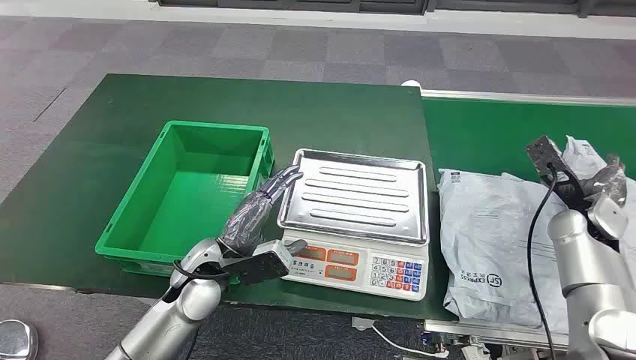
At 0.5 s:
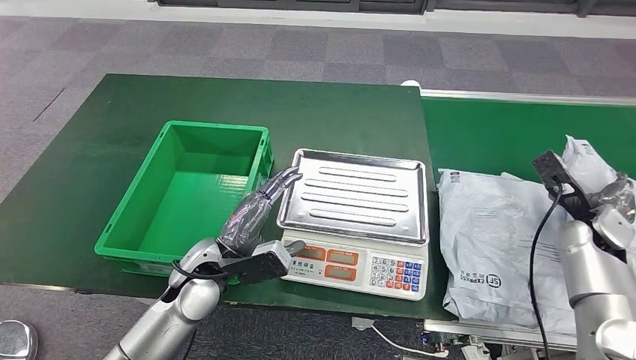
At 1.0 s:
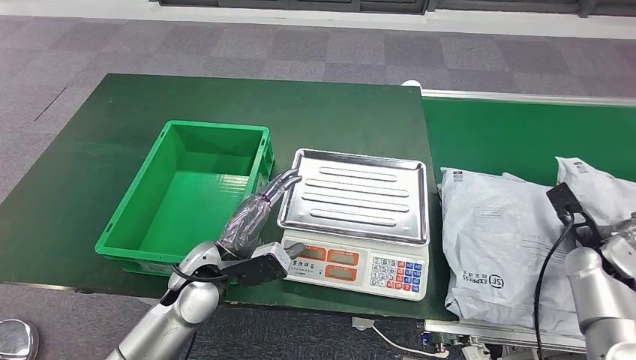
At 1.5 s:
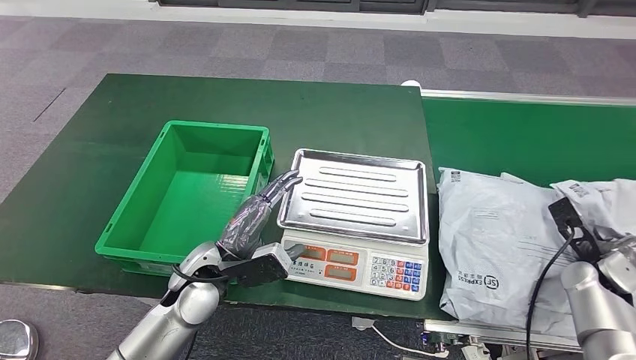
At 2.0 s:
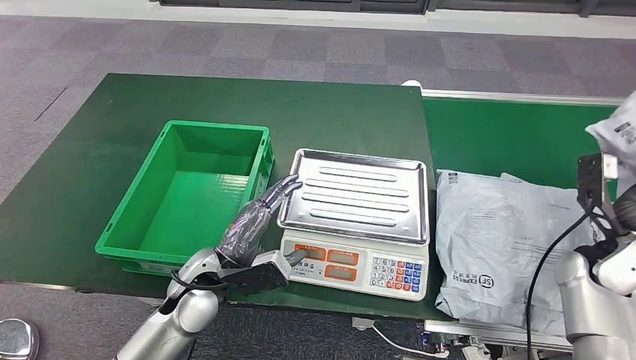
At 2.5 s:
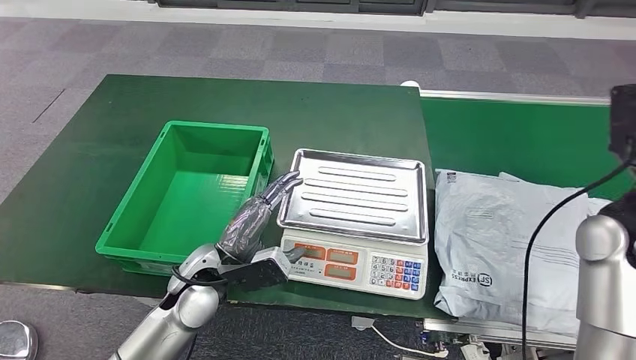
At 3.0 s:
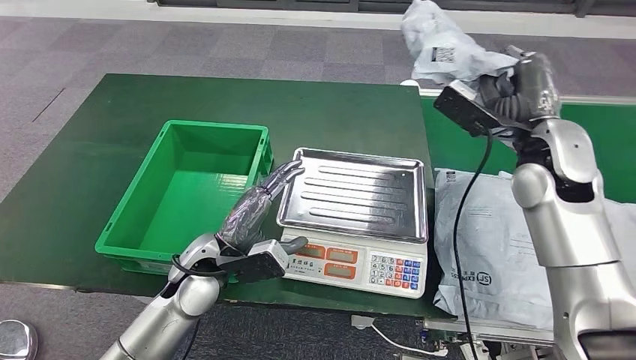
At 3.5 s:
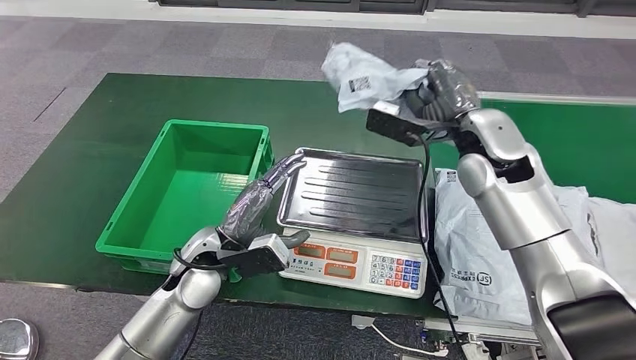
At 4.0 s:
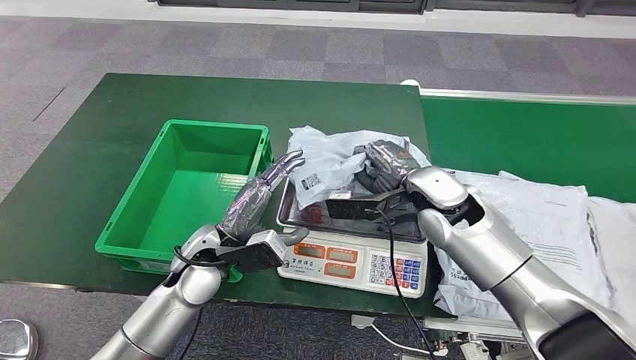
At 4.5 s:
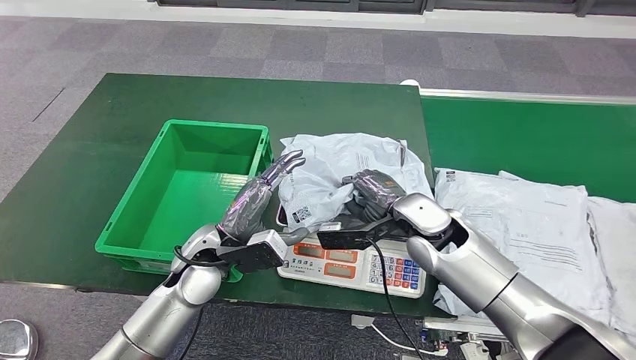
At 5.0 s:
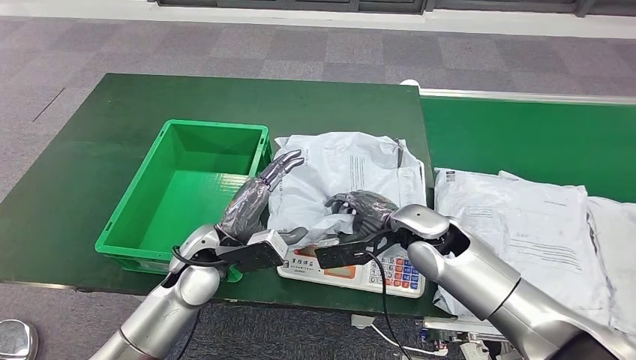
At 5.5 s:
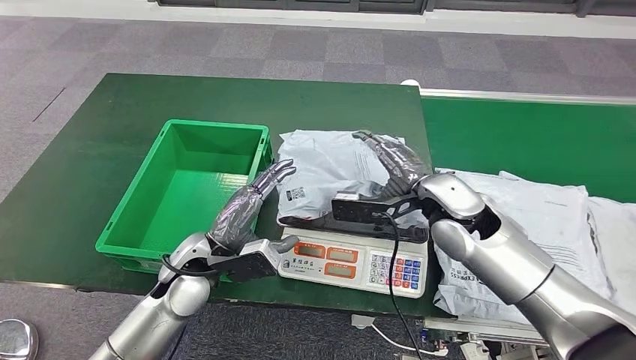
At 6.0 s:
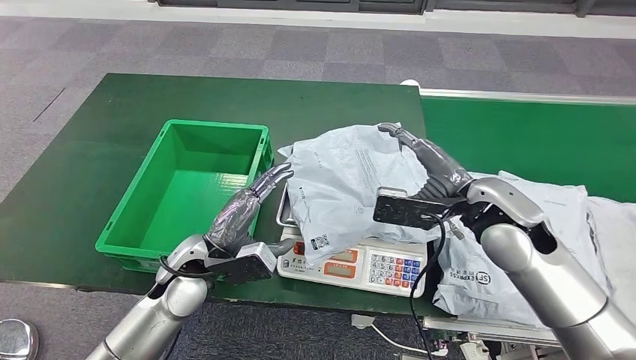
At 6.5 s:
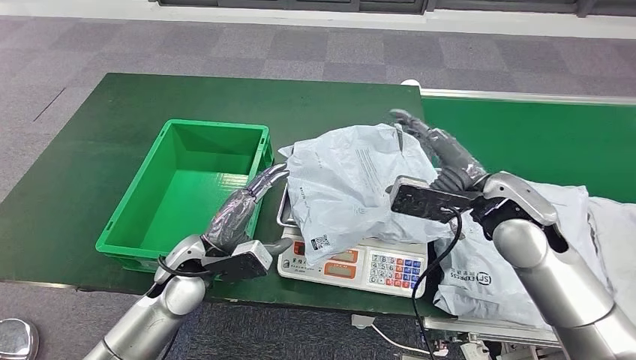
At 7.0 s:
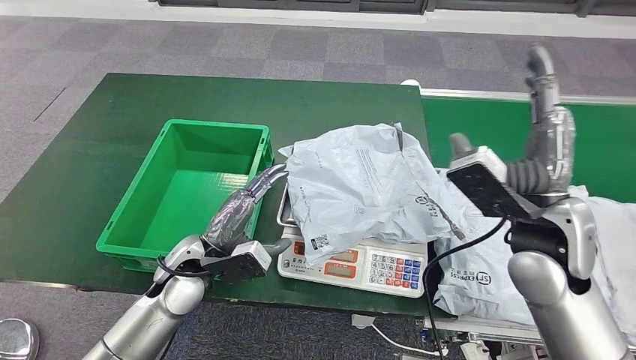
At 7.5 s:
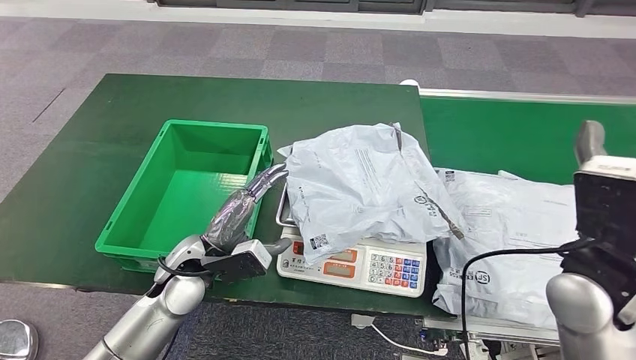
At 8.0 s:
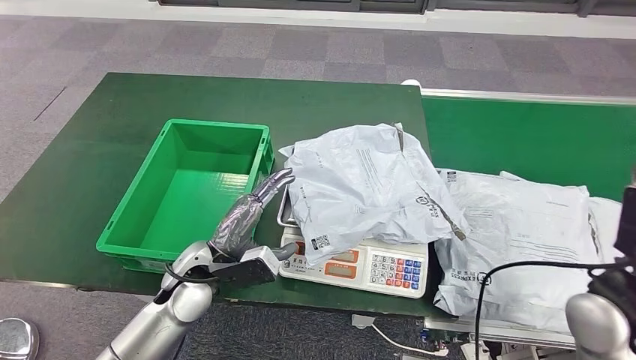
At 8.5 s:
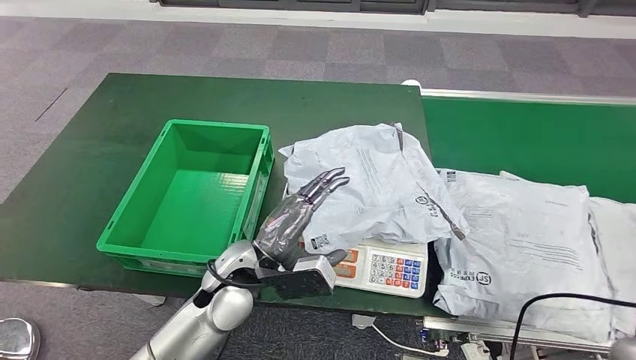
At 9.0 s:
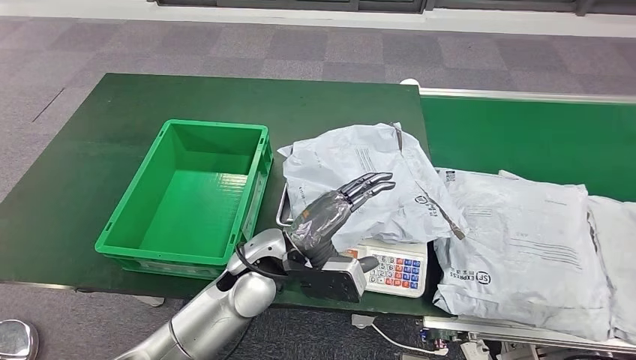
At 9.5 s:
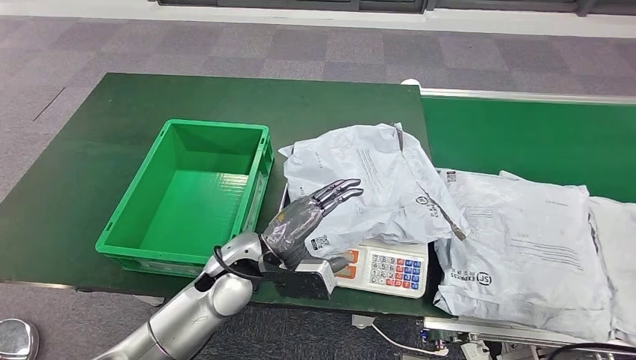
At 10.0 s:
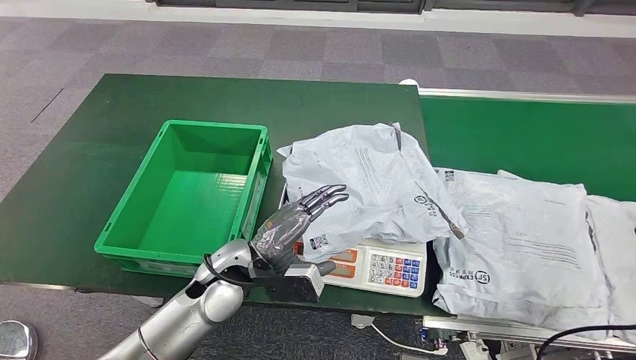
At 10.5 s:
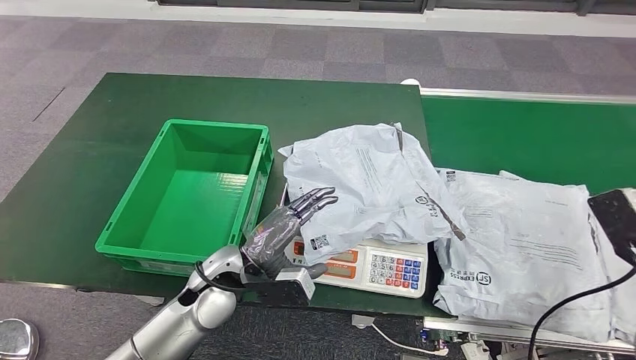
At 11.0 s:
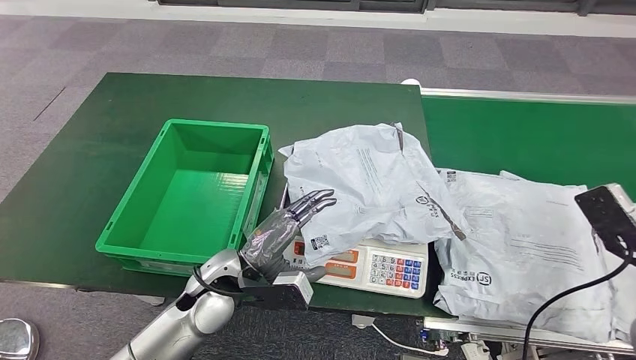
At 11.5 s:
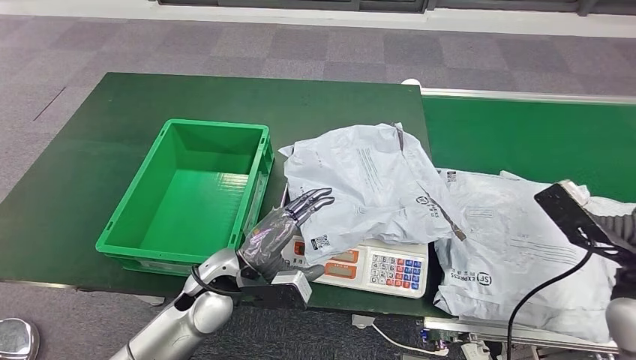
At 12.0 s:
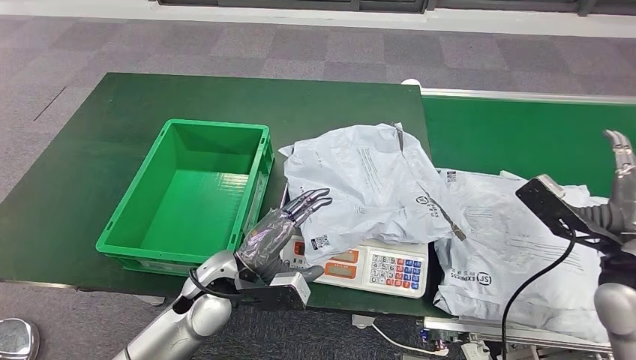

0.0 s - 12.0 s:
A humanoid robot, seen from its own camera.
Step, 0.0 s - 2.5 s: Take the parcel off the conveyor belt.
Step, 3.0 s - 6.5 s: Place the parcel onto the inbound machine.
4.0 s - 6.0 s: The right hand goes some 5 cm to the right.
6.0 s - 8.0 s: The right hand moves backward and to the right, about 15 cm.
8.0 s - 10.0 s: The left hand moves to the right, roughly 5 cm; the right hand is displaced backward and to the right by approximately 15 cm.
10.0 s - 12.0 s: The right hand goes roughly 10 cm forward.

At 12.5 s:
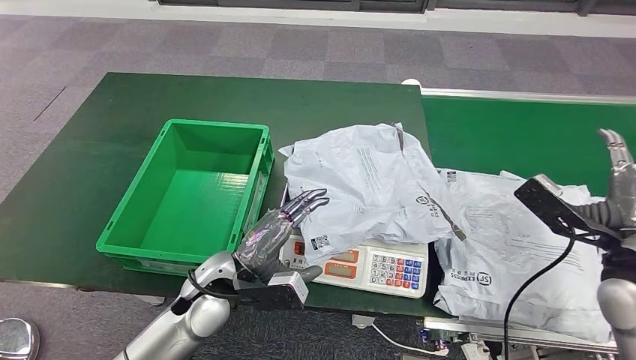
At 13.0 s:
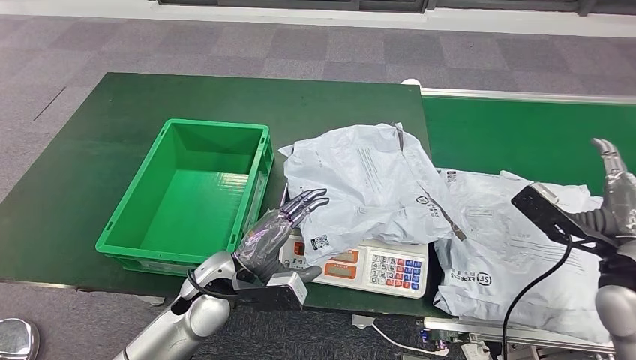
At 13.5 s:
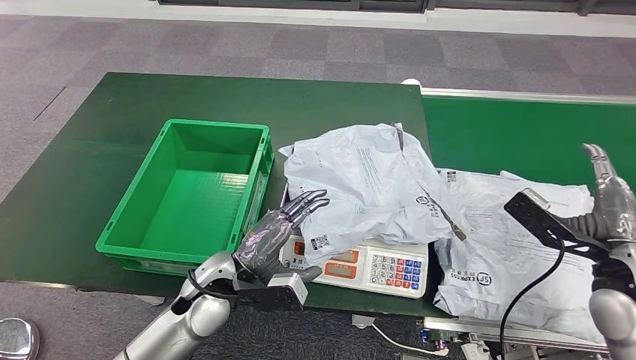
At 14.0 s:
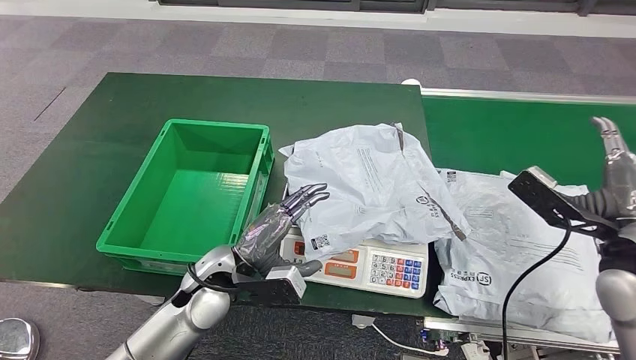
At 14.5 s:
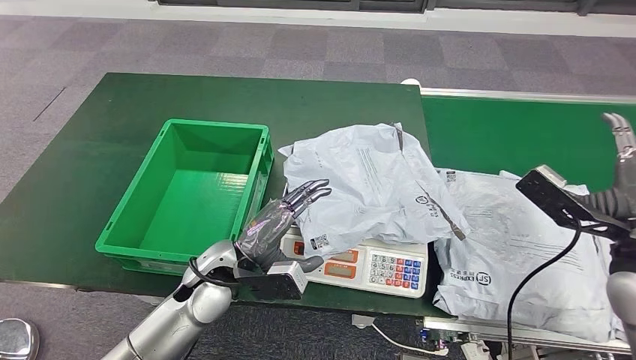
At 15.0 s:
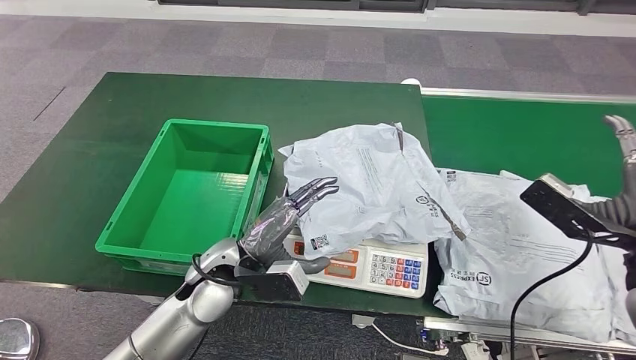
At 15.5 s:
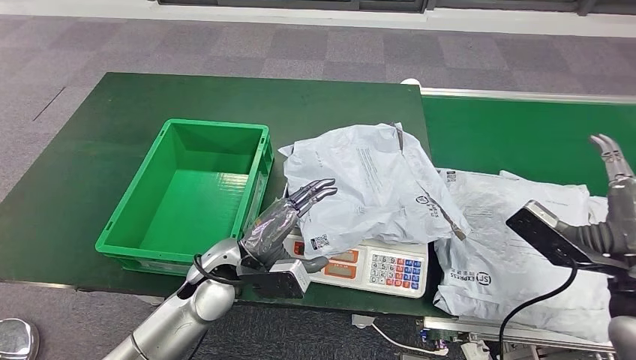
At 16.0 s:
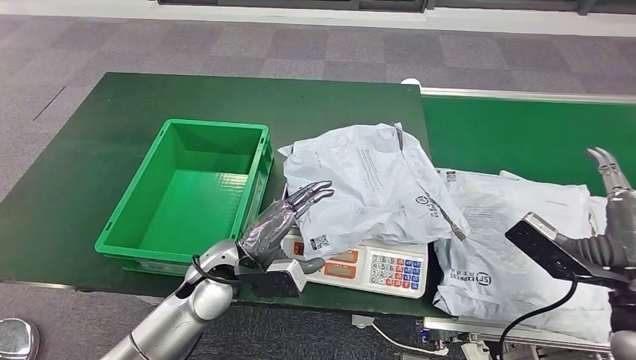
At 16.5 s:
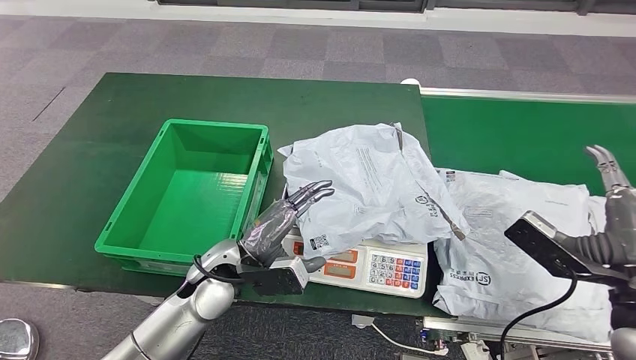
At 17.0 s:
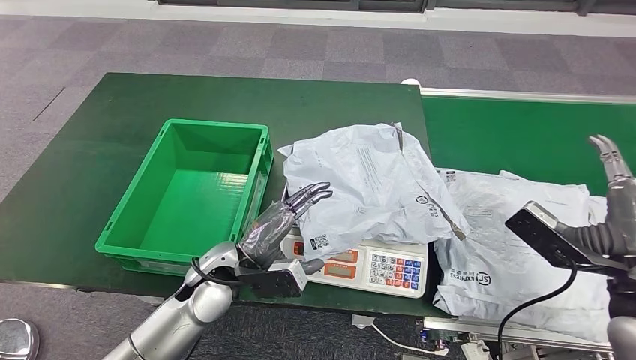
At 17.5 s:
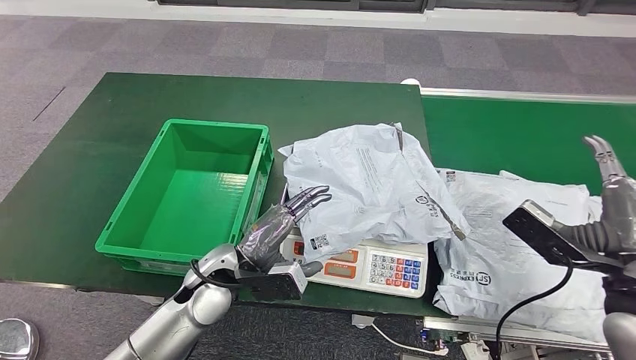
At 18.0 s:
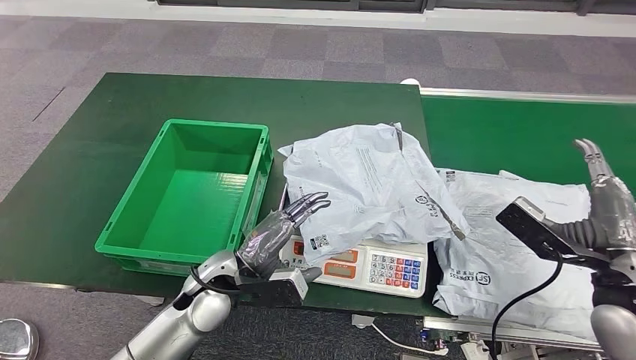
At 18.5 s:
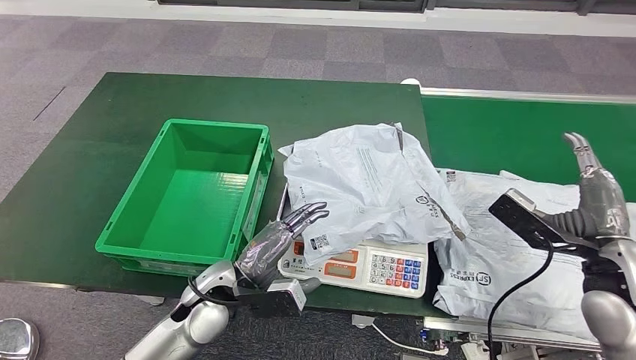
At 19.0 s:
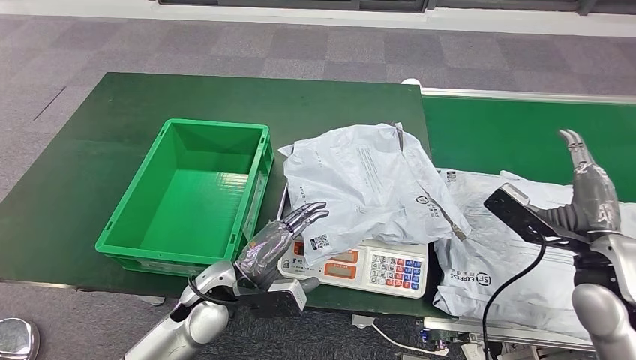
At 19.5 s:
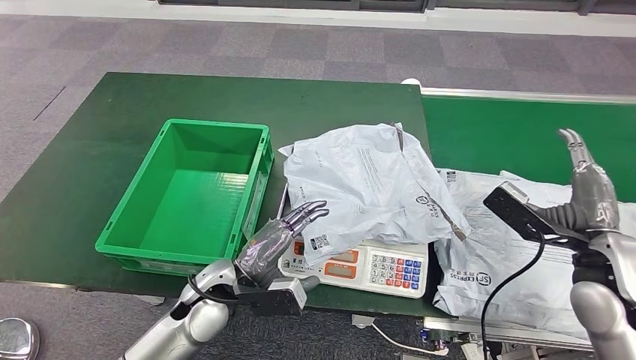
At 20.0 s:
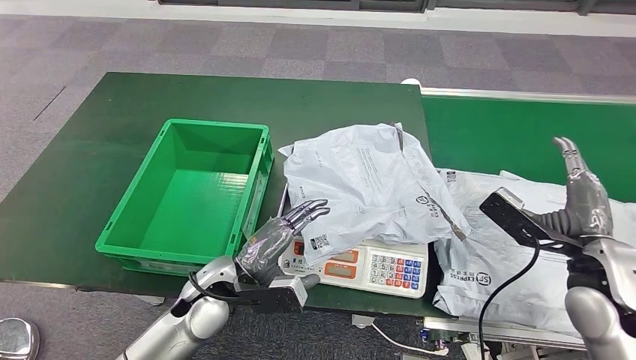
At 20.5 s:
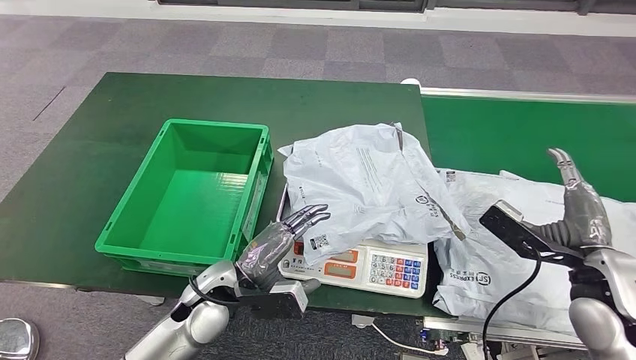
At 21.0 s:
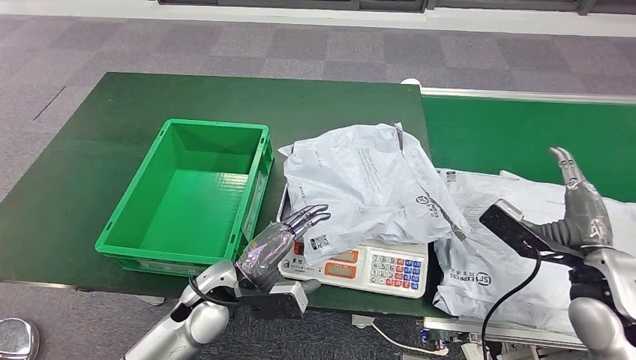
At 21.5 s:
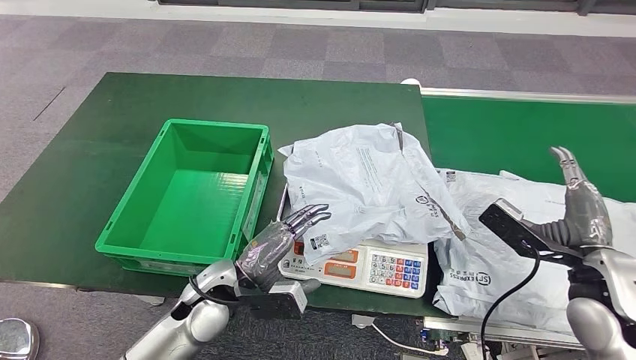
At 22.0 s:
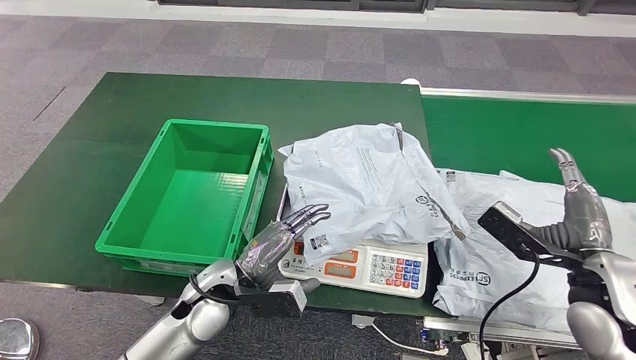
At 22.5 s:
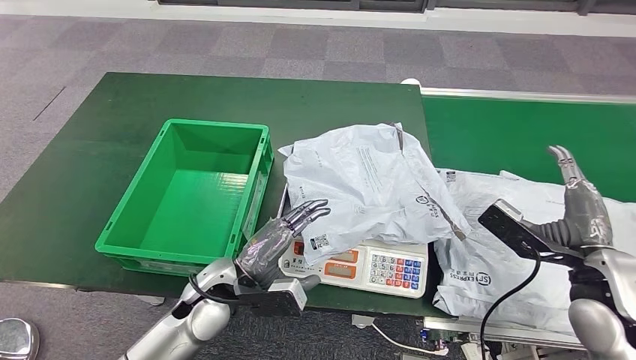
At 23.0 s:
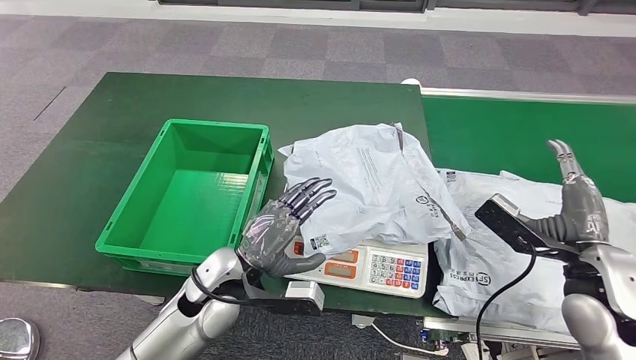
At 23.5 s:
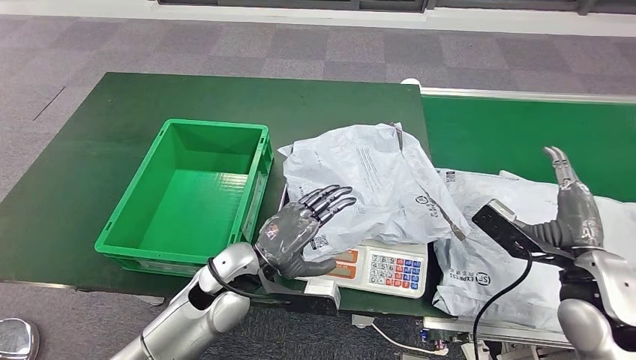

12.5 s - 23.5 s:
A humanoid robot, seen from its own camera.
12.5 s - 14.5 s: The hands move only a little.
14.5 s - 16.0 s: The right hand heads backward, covering some 5 cm.
16.0 s - 21.5 s: The hands stay close to where they were, moving slightly.
21.5 s - 23.5 s: The left hand shifts by roughly 5 cm.
